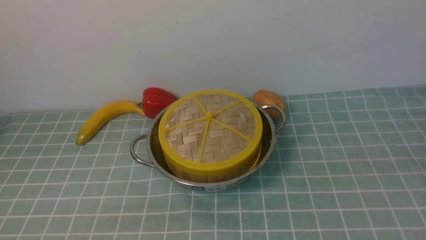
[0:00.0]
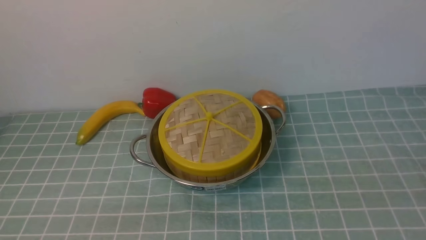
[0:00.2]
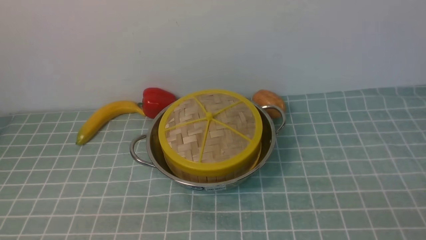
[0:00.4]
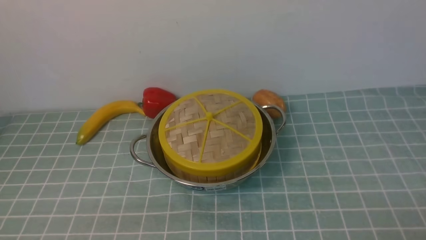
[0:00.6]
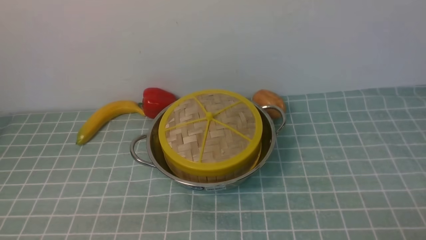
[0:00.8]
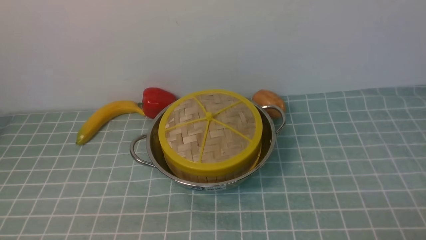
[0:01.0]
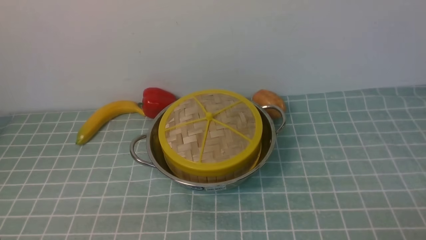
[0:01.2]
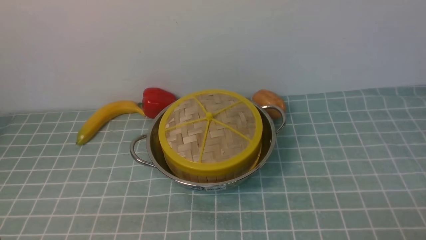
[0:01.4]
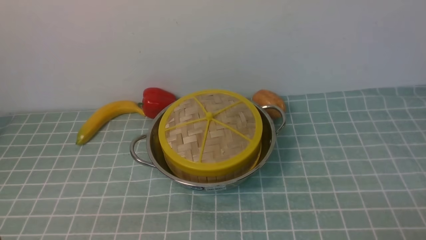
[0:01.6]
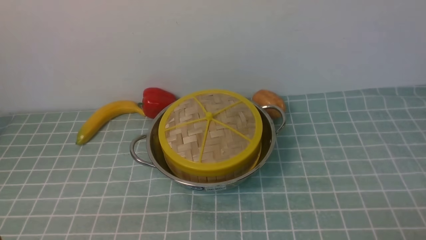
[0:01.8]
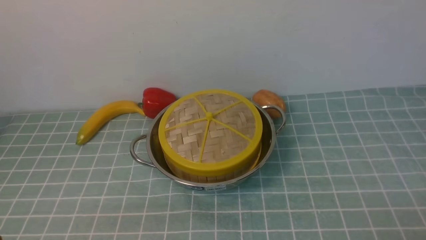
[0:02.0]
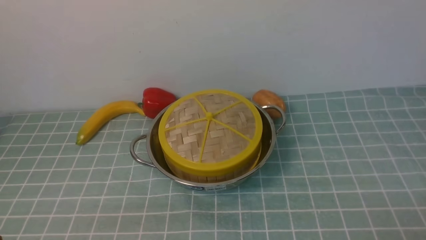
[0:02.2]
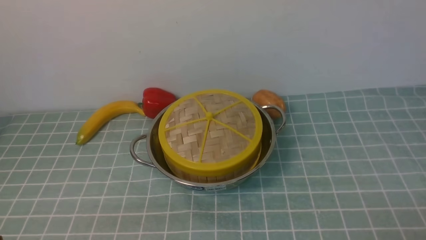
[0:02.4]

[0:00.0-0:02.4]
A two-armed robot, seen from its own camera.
Task of the whole recording: place the steamer in the pot on the blue tablecloth, and put the lid on the steamer.
0:01.2 to 0:02.4: Both grippers stay about where they are.
